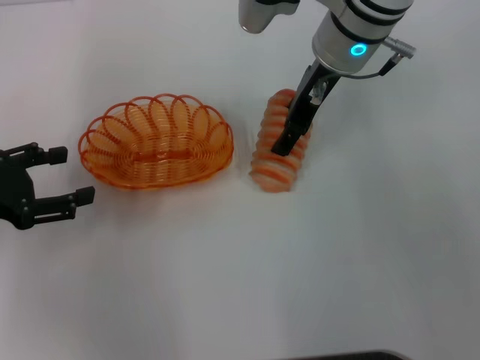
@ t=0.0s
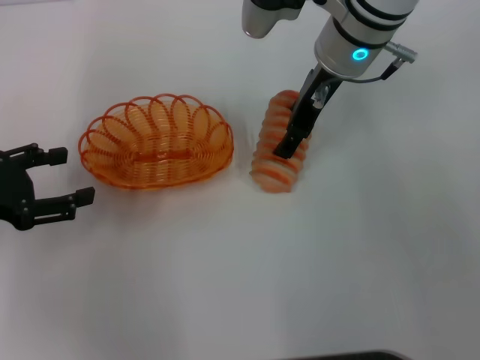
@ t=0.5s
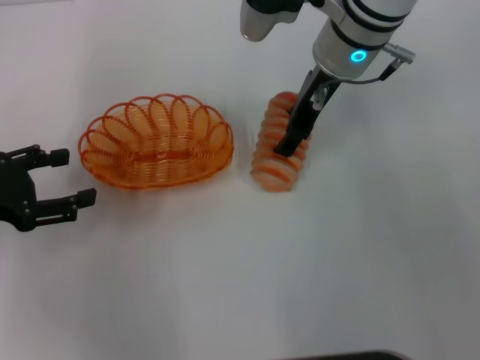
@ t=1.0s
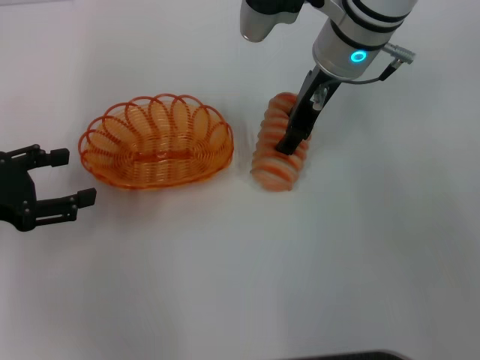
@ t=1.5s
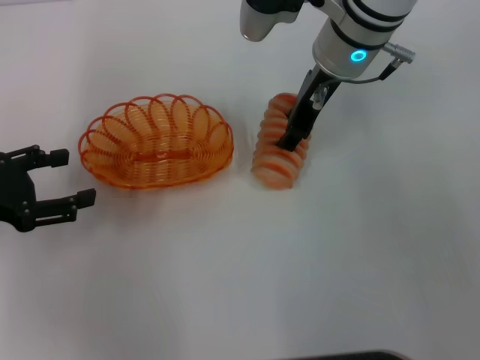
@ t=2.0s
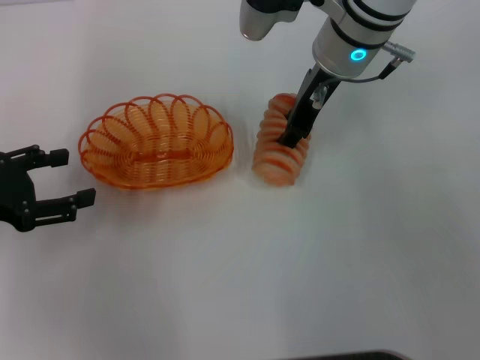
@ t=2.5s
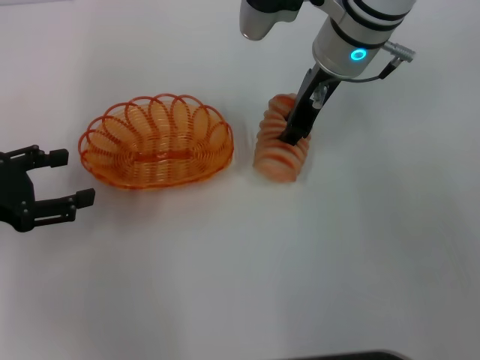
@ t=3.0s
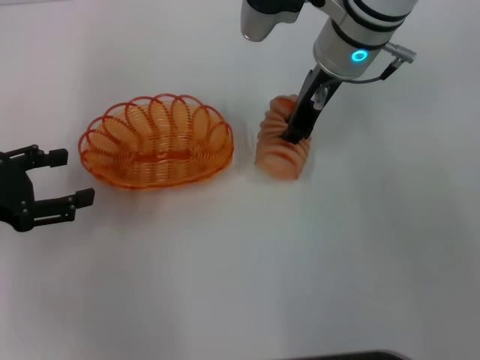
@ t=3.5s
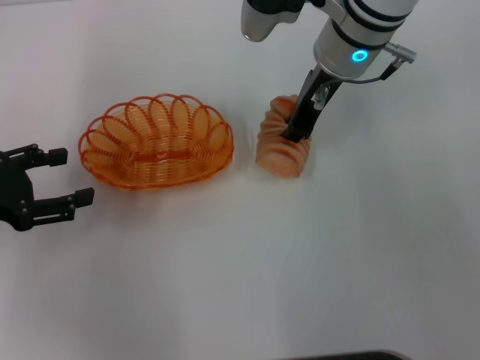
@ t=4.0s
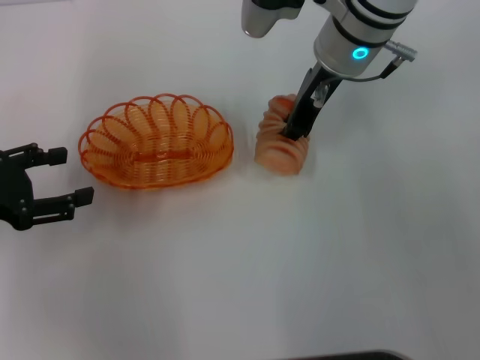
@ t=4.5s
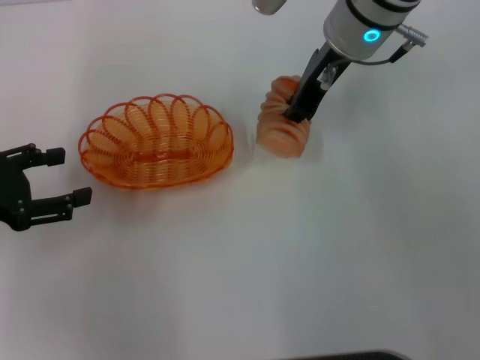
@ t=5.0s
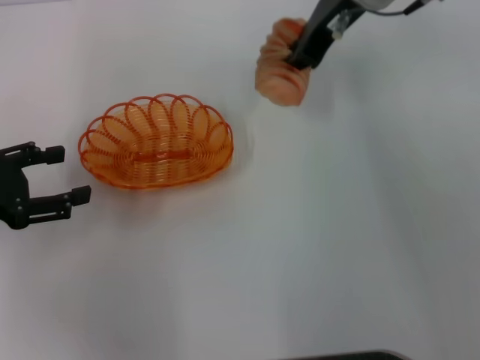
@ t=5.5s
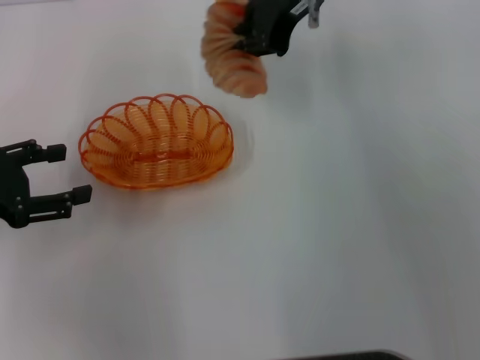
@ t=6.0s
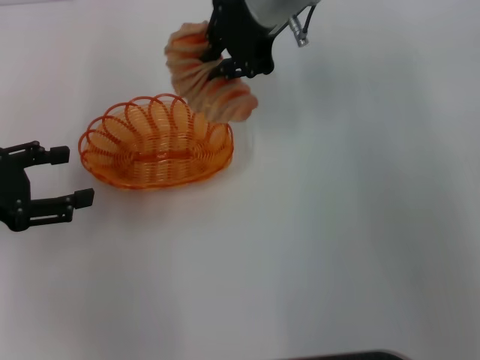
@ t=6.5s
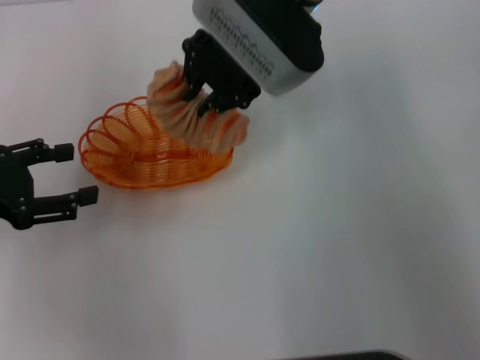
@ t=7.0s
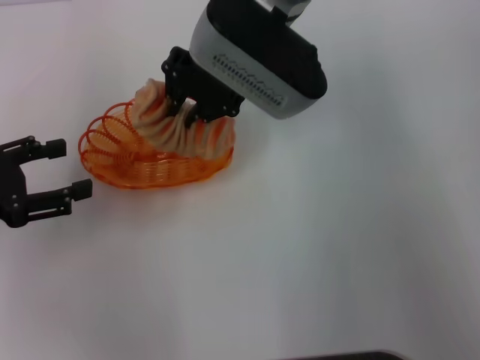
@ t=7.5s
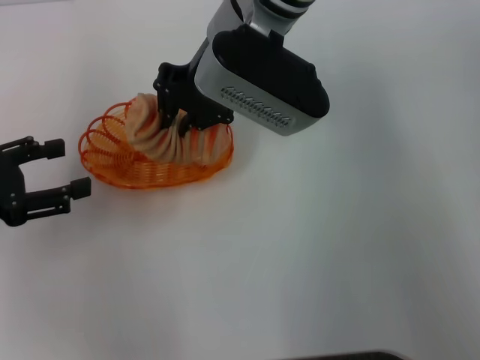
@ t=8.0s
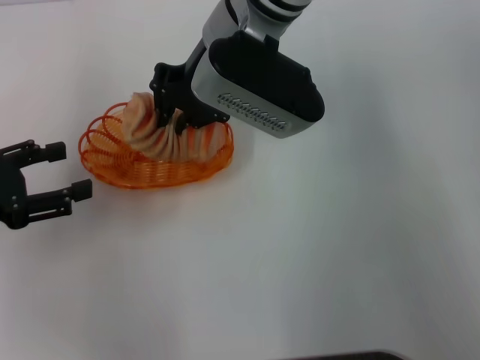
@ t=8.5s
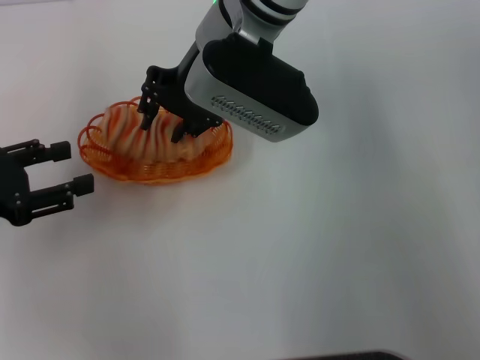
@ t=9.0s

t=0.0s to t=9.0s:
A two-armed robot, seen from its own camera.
Step, t=0.0s to t=5.0s: Pick up the long bread with the right gripper.
t=0.0s to t=2.0s: The right gripper closes.
t=2.0s to t=4.5s: The right gripper closes up.
t=4.5s to t=7.0s: The right gripper heads to the left, covering about 5 cm.

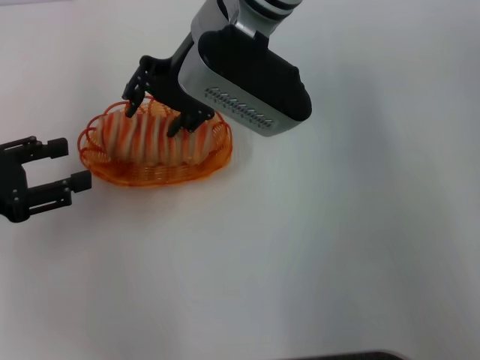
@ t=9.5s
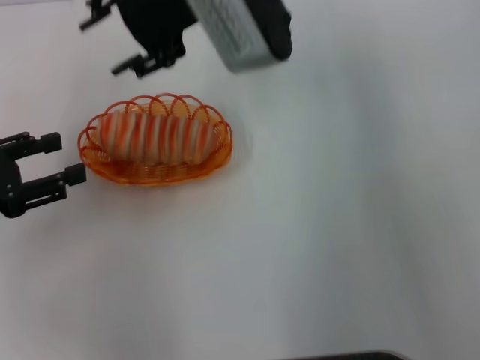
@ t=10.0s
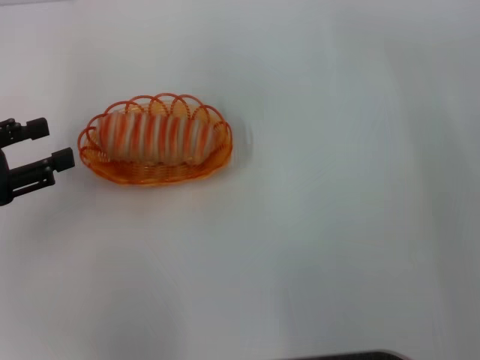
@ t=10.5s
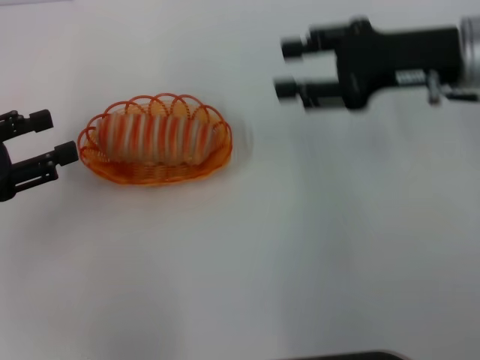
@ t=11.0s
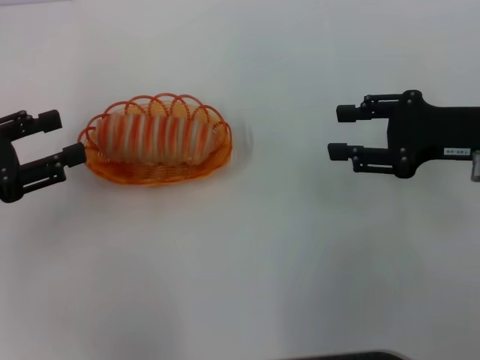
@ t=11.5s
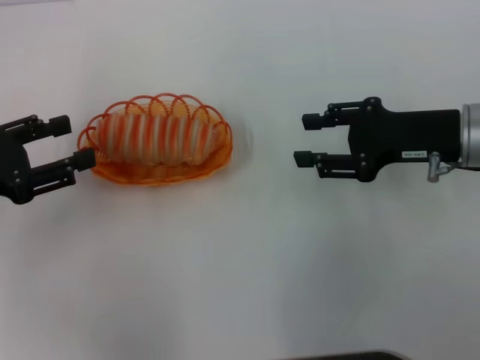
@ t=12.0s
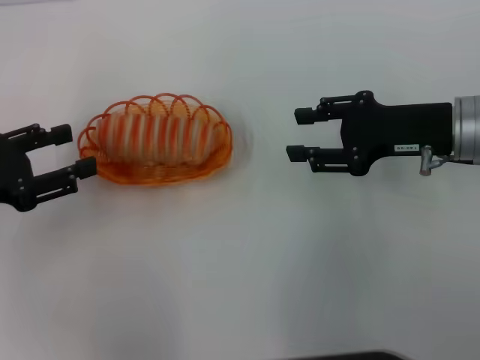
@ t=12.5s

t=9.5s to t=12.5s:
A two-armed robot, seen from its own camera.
t=9.5s to t=11.0s: The right gripper shifts roughly 20 cm to the right.
t=11.0s to t=12.5s: The right gripper shifts roughly 5 cm downward.

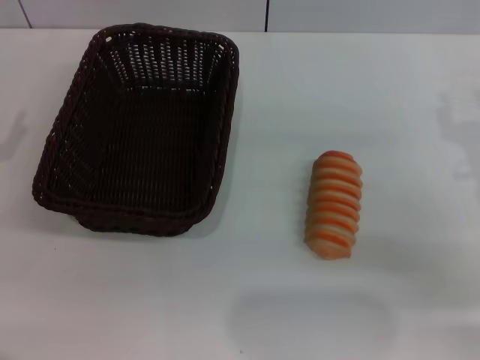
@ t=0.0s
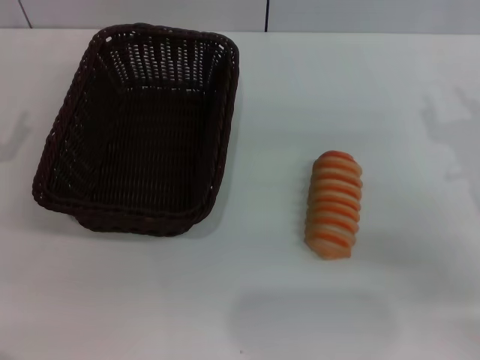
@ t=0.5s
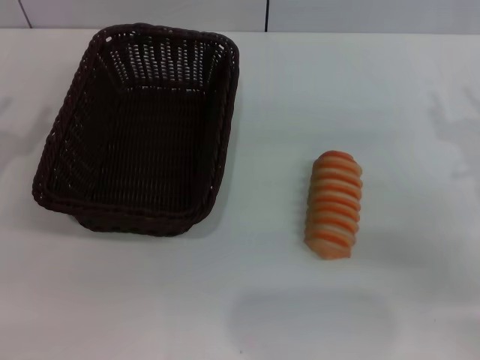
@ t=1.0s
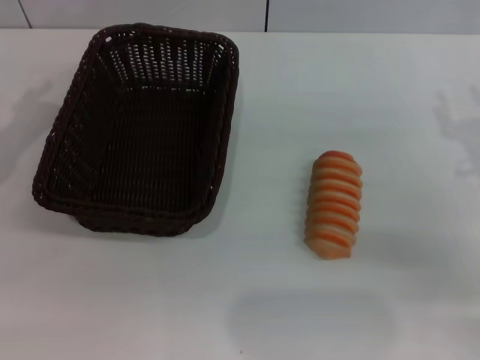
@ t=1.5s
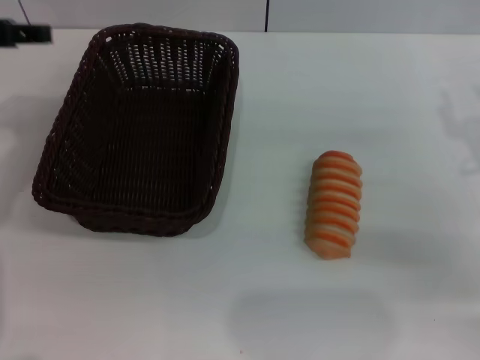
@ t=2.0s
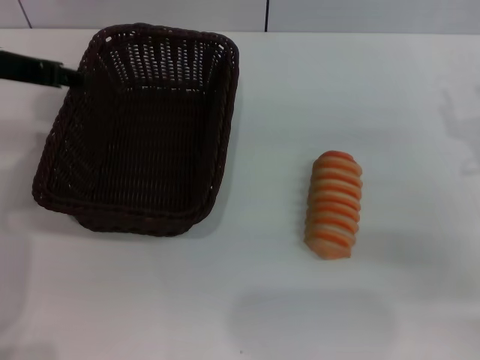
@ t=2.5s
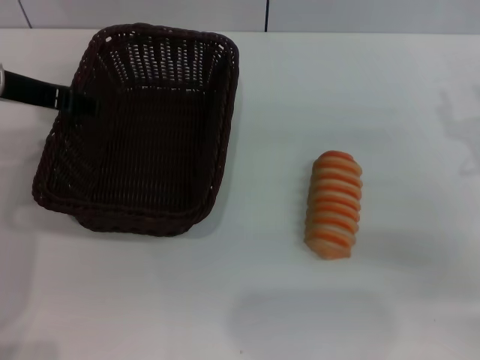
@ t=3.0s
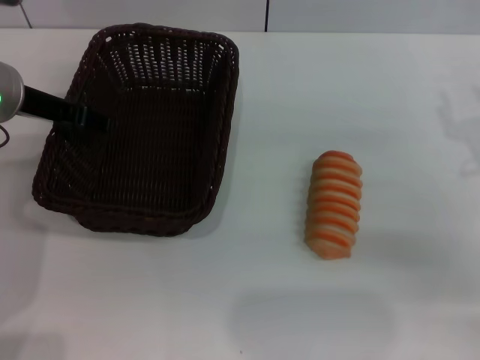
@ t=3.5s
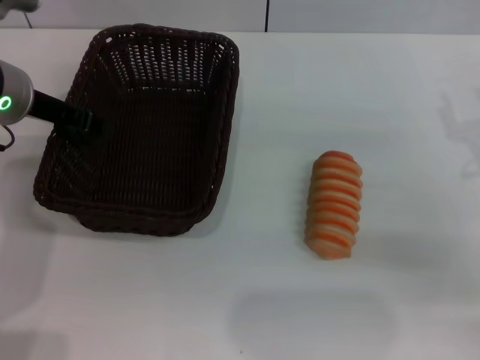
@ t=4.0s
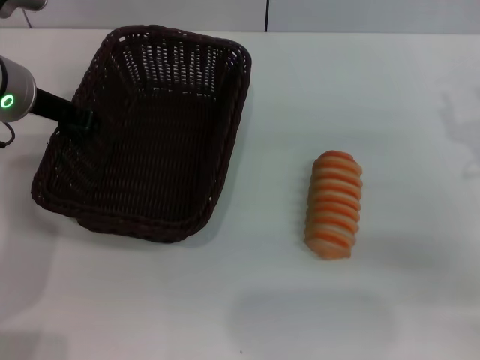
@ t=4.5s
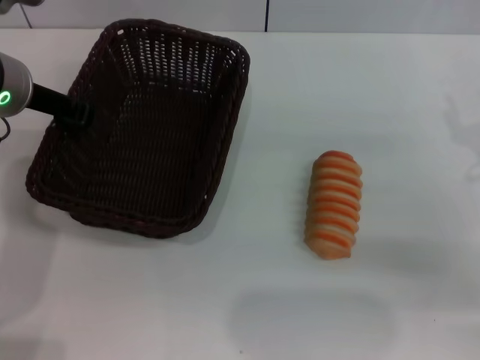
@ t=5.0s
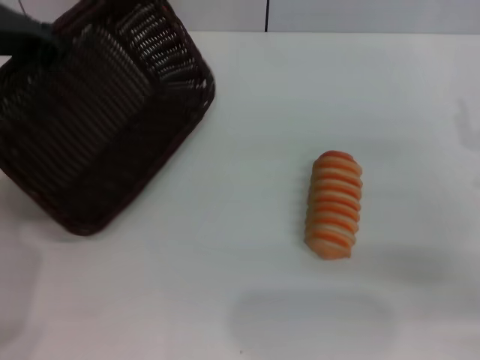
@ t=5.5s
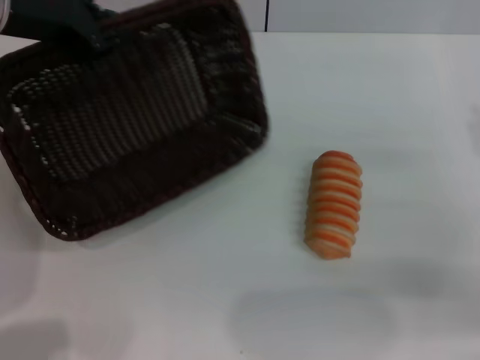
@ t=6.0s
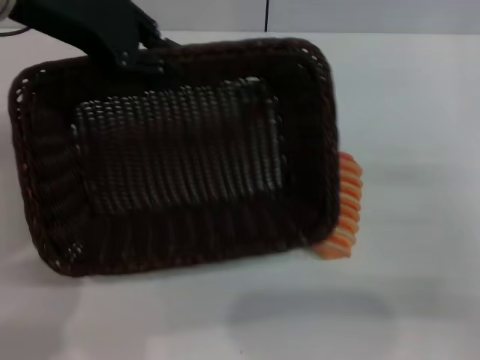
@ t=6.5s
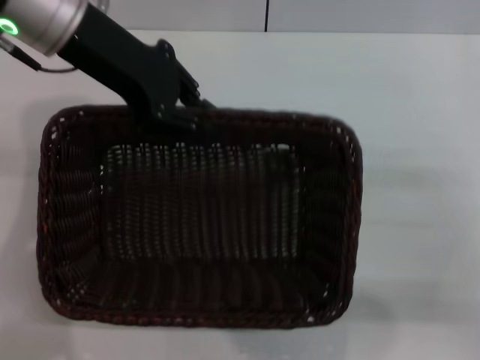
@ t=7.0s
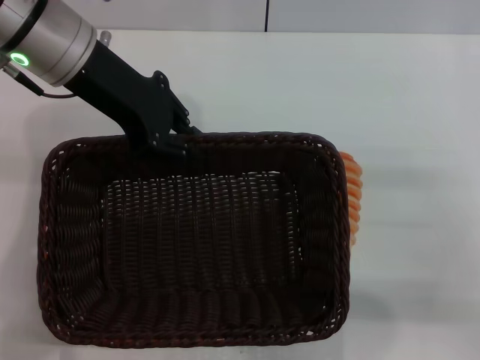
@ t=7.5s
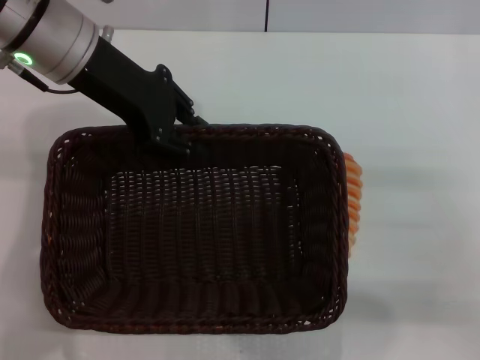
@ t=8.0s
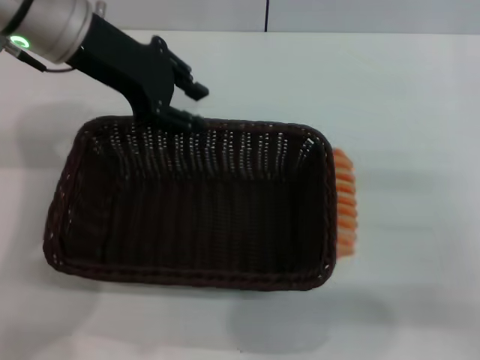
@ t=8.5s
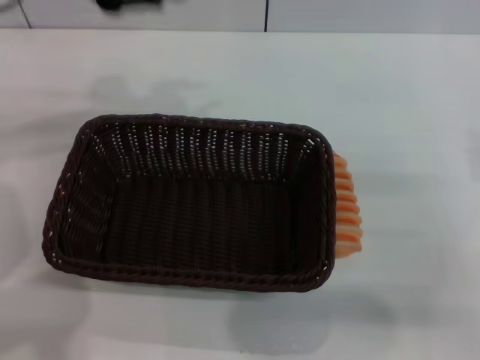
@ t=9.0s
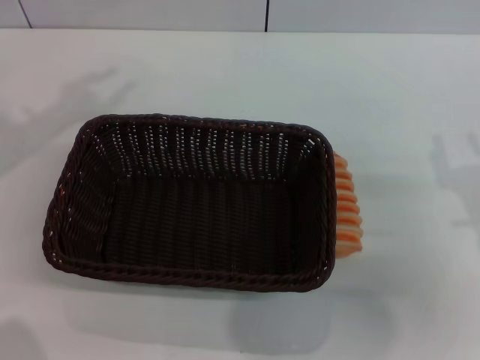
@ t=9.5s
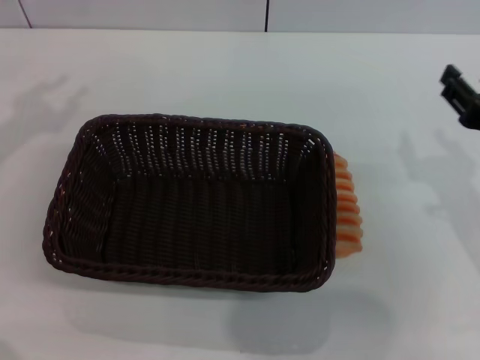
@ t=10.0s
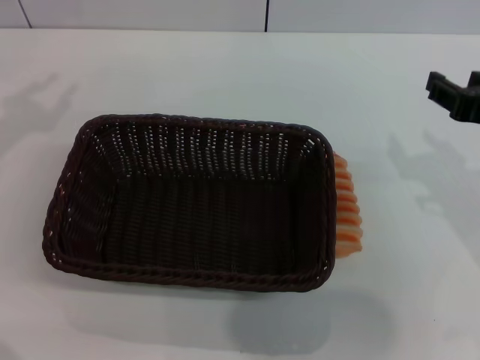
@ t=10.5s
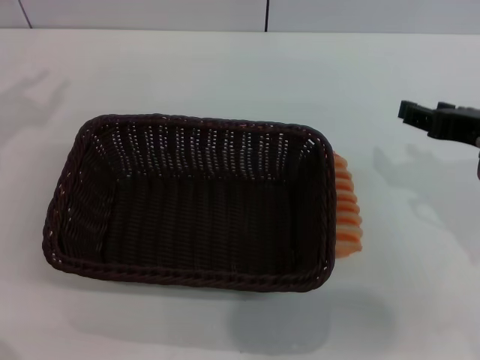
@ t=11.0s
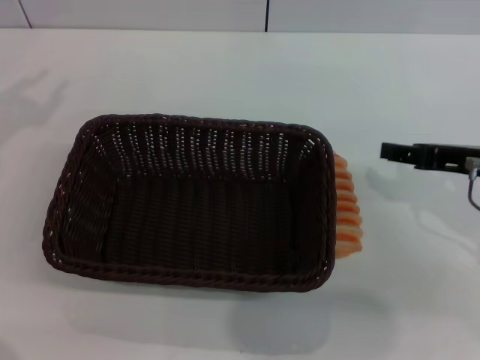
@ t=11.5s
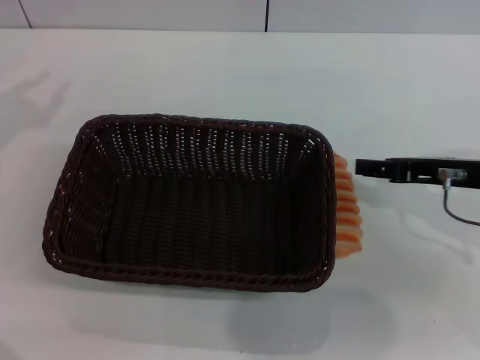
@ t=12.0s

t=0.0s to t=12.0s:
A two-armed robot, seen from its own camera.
Step, t=0.0s to t=5.5s: Pick up the dark basket with the left gripper.
Step, t=6.0s to t=8.5s: Place the dark basket in the center of view with the left gripper.
t=0.0s to t=2.0s: The left gripper heads upward, forward and to the right, covering roughly 20 cm.
t=2.0s to t=4.0s: The left gripper shifts approximately 10 cm downward and to the right.
t=4.0s to t=6.0s: The left gripper moves upward, some 10 cm, and closes its fingers.
t=6.0s to t=8.0s: The left gripper shifts by approximately 5 cm.
t=8.0s to t=10.0s: The right gripper heads to the left, covering roughly 5 cm, while the left gripper travels to the left and backward by some 20 cm.
t=10.0s to t=12.0s: The right gripper moves forward, about 5 cm.

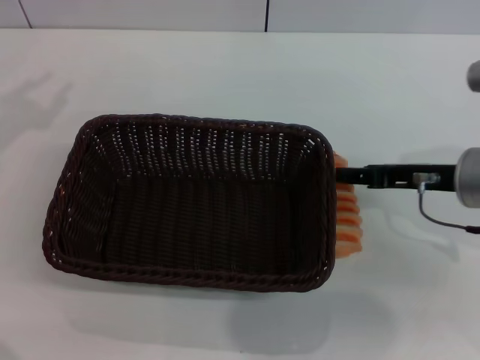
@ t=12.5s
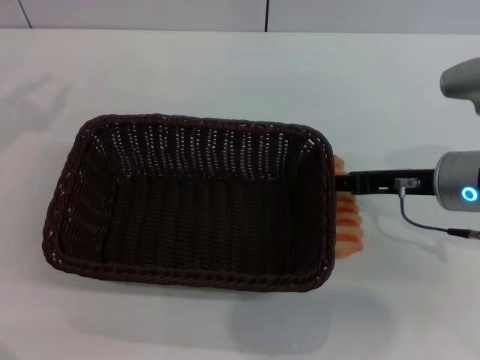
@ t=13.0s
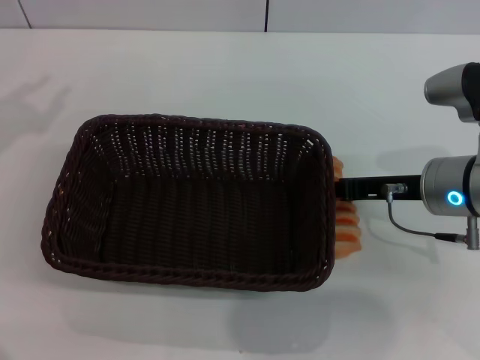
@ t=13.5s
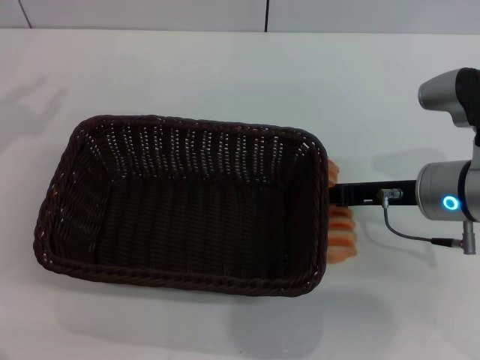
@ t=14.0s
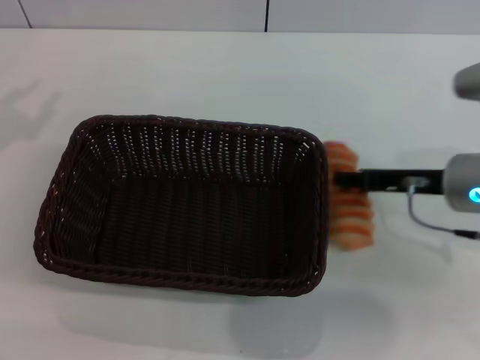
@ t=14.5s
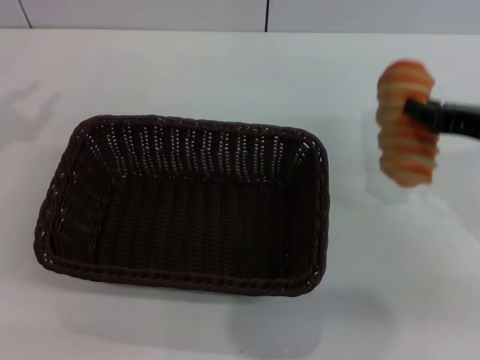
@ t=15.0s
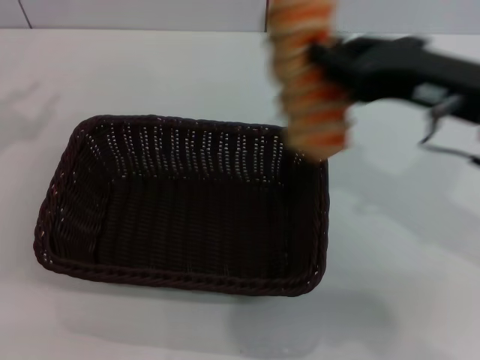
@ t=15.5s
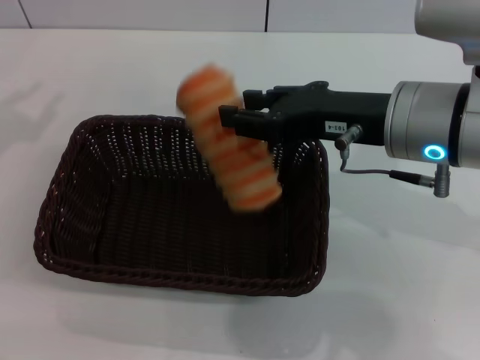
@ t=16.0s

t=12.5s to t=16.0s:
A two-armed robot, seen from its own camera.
Step, t=12.5s to t=15.0s: Pick up the long bread with the right gripper.
t=12.5s to t=14.5s: The right gripper closes.
t=14.5s to t=16.0s: The right gripper shifts some 10 cm upward and to the left.
